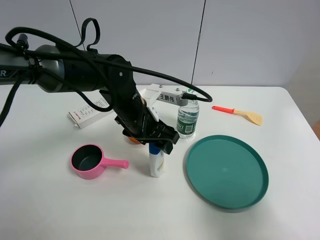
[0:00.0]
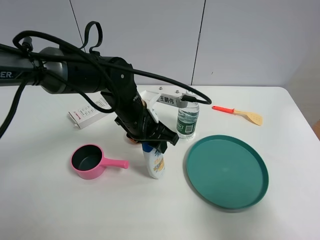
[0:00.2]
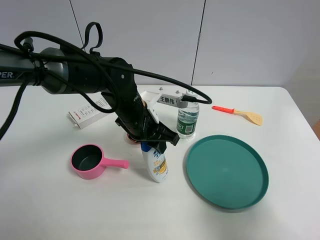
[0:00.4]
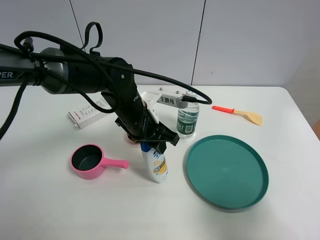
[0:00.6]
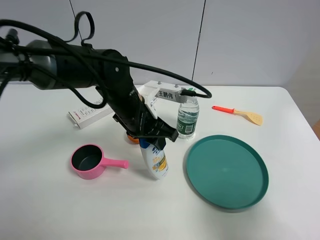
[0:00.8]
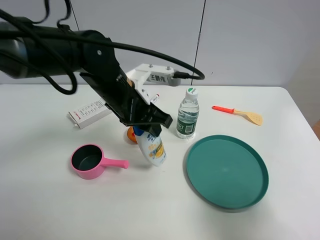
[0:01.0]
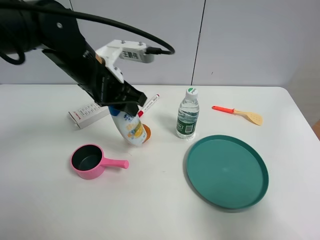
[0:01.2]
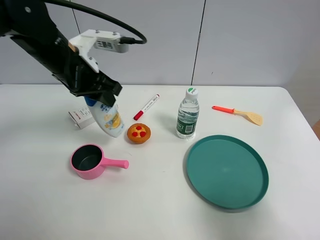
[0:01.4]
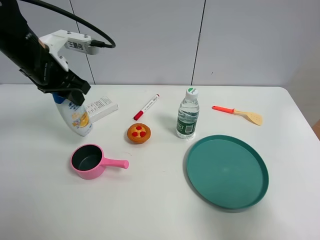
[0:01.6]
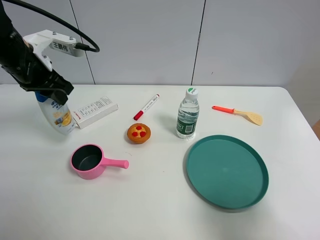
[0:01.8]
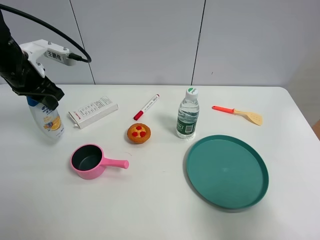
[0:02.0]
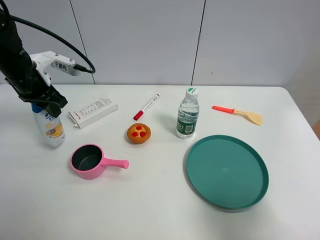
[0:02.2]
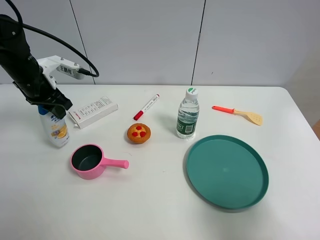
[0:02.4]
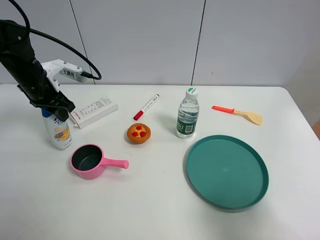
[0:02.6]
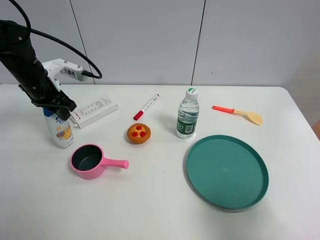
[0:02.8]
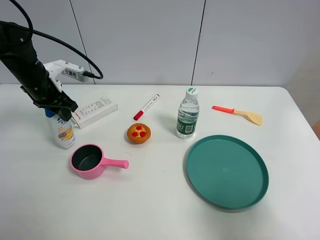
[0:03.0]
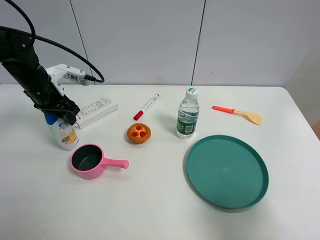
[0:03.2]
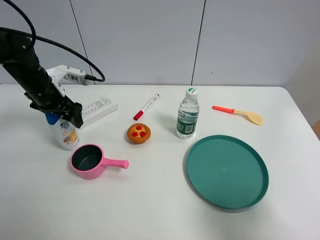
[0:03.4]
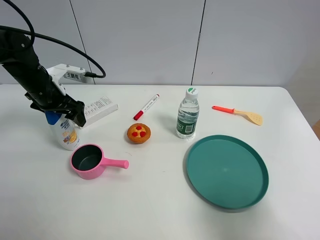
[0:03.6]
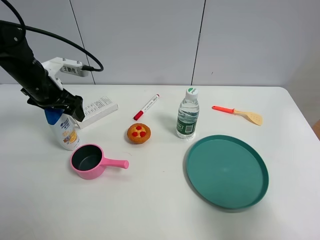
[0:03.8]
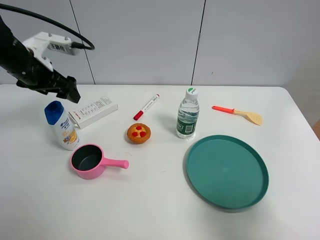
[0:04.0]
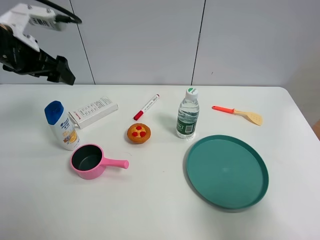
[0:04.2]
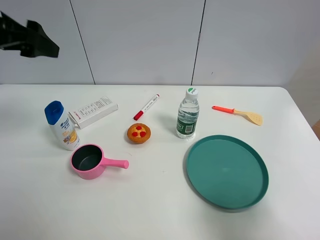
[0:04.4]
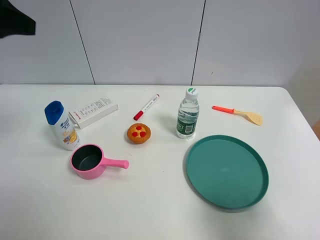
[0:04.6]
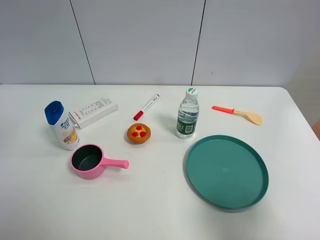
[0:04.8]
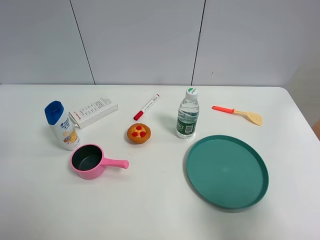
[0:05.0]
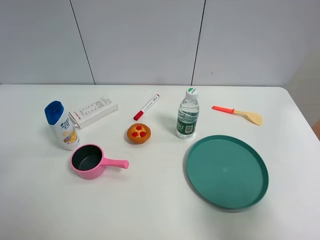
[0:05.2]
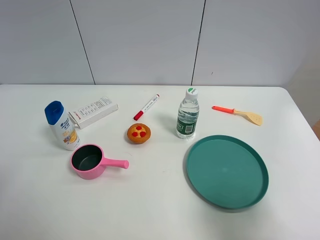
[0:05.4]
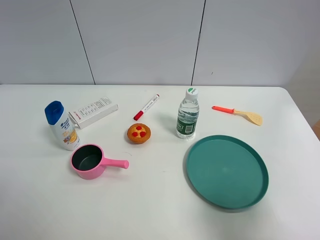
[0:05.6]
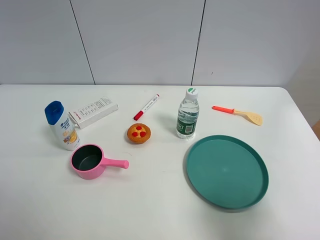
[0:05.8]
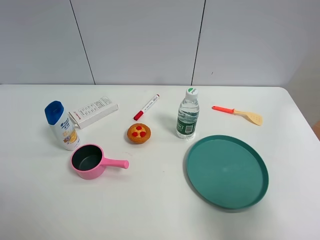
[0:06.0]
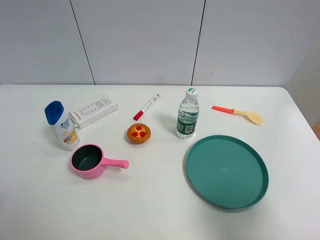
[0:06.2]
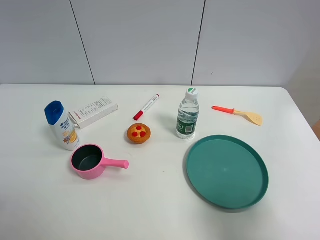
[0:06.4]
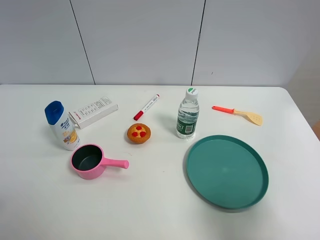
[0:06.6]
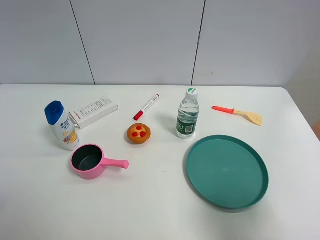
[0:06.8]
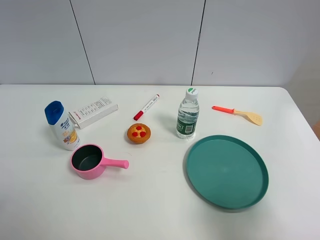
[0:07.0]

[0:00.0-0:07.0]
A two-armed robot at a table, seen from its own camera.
Task of the whole recording: the gripper move the object.
Step, 0:00.4 to 0:03.2: Place the shampoo on the table with the left gripper.
0:00.0 to 0:01.4: The left gripper shifts roughly 15 cm to the left and upward, and closes up.
0:01.4 to 0:02.8: The left gripper shifts about 15 cm to the left, downward and forward.
0:02.8 to 0:04.2: The left gripper heads upward, covering roughly 10 cm, and opens.
0:04.2 to 0:05.6: The left gripper moves backward, about 30 cm.

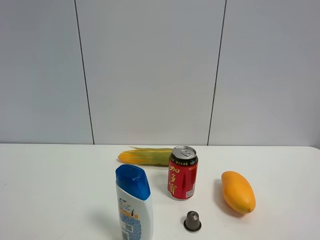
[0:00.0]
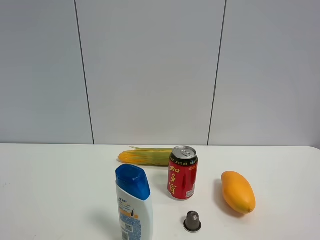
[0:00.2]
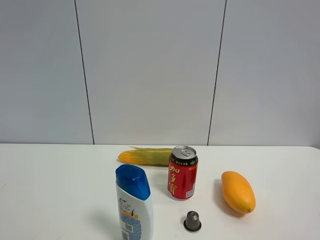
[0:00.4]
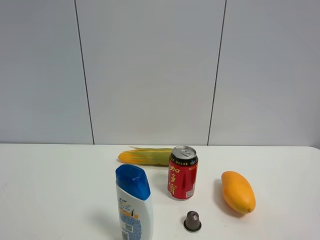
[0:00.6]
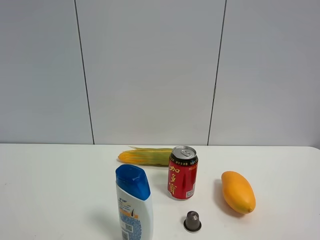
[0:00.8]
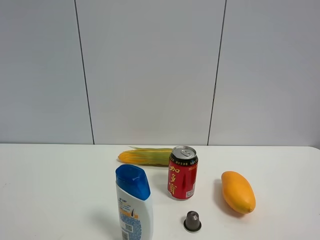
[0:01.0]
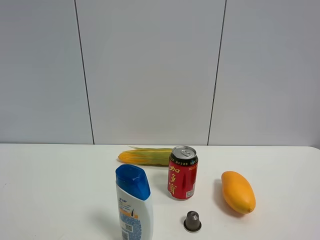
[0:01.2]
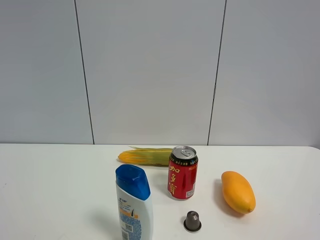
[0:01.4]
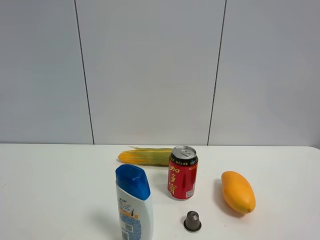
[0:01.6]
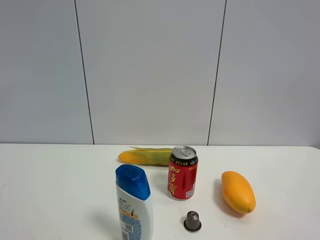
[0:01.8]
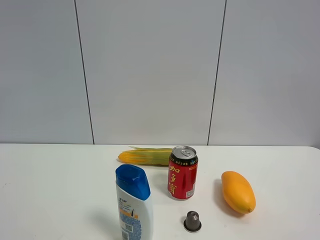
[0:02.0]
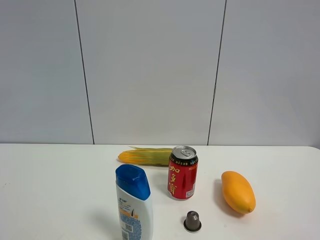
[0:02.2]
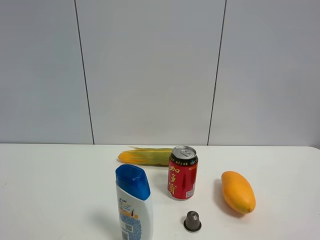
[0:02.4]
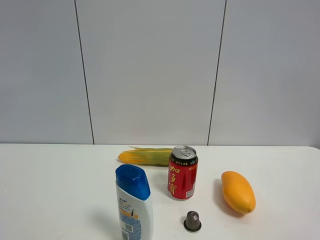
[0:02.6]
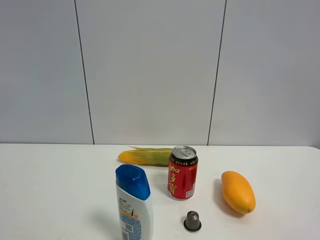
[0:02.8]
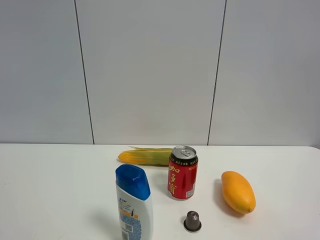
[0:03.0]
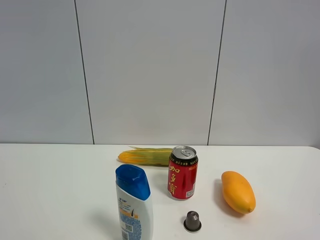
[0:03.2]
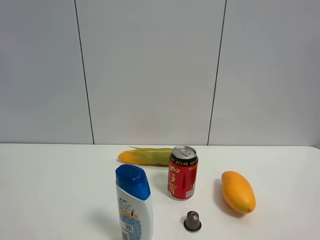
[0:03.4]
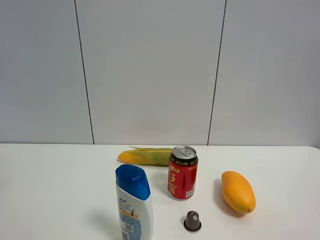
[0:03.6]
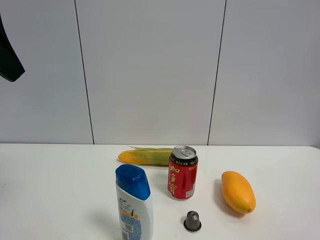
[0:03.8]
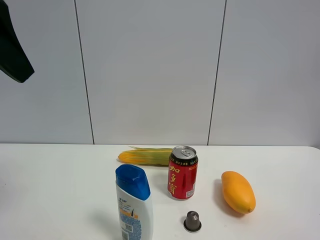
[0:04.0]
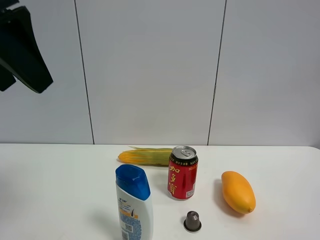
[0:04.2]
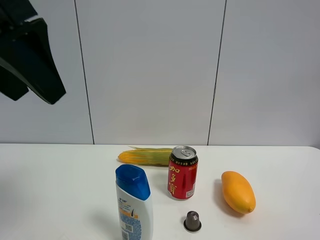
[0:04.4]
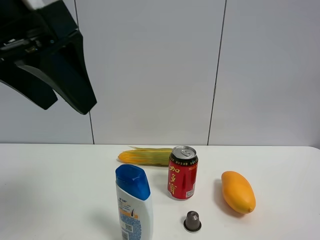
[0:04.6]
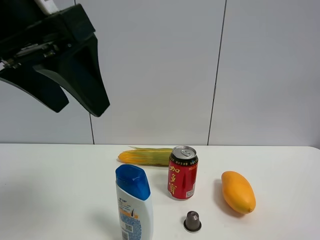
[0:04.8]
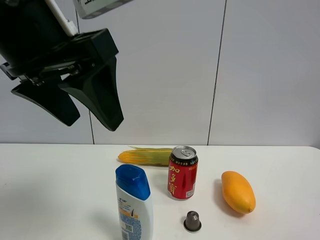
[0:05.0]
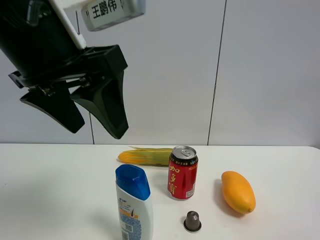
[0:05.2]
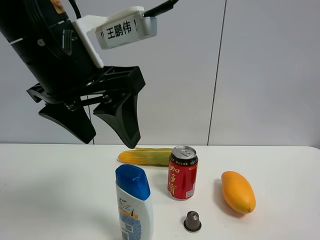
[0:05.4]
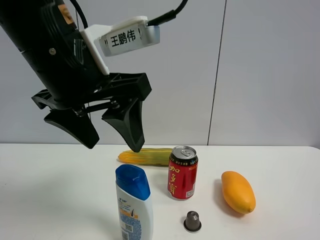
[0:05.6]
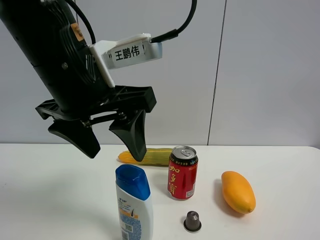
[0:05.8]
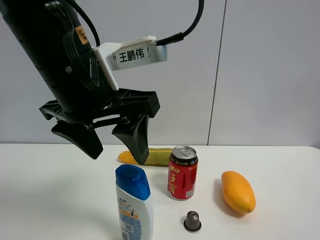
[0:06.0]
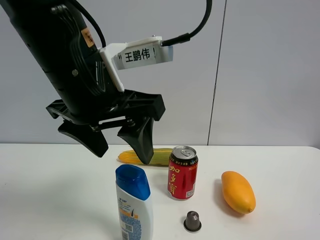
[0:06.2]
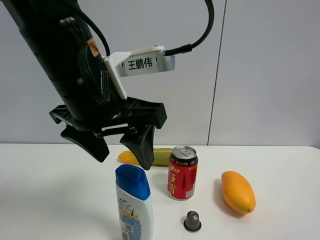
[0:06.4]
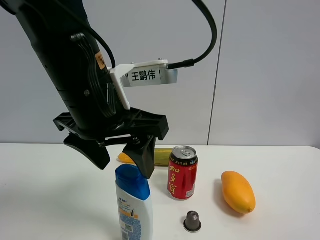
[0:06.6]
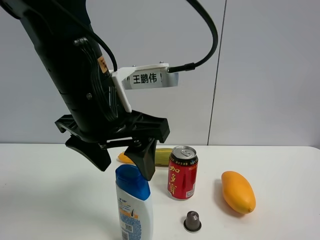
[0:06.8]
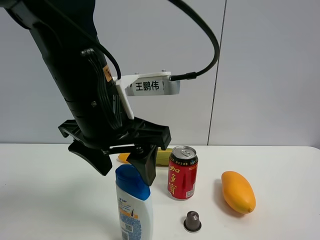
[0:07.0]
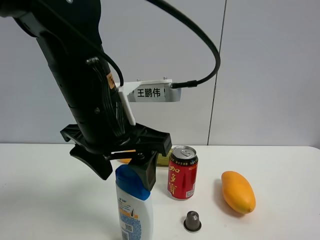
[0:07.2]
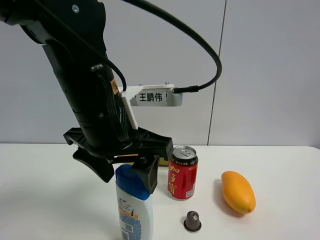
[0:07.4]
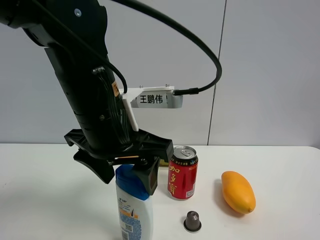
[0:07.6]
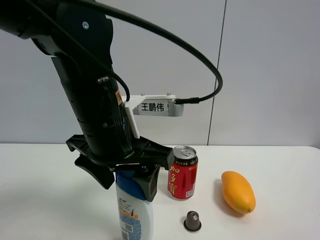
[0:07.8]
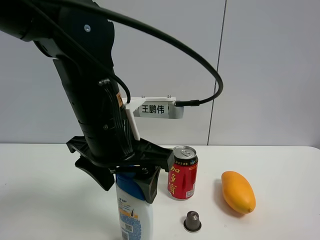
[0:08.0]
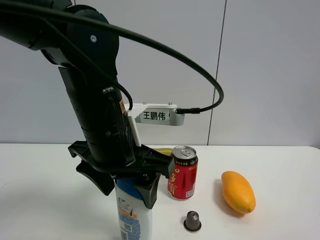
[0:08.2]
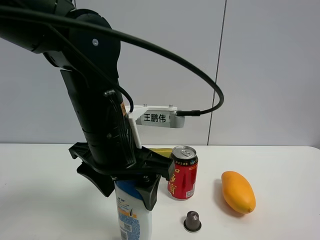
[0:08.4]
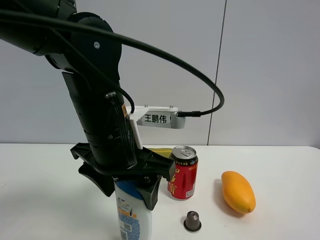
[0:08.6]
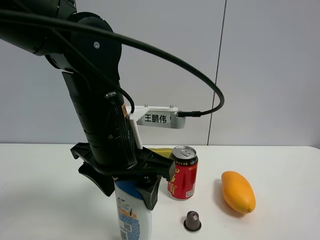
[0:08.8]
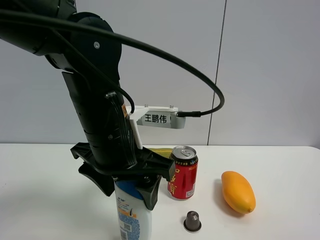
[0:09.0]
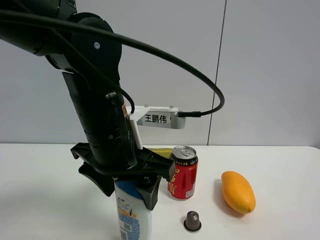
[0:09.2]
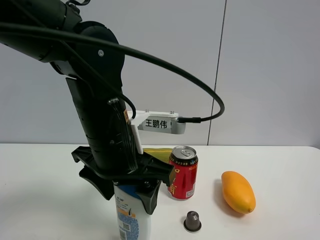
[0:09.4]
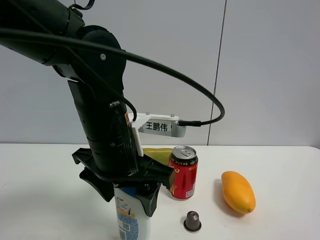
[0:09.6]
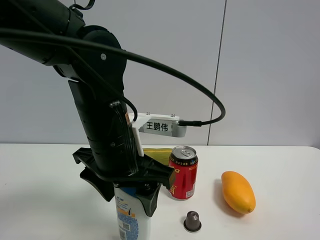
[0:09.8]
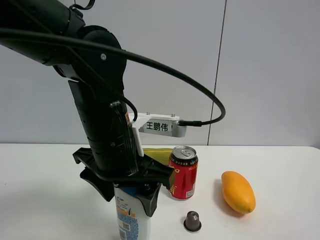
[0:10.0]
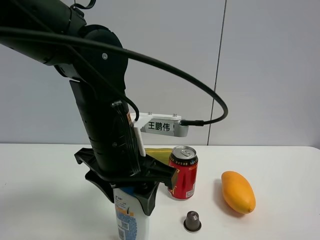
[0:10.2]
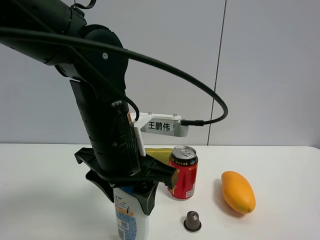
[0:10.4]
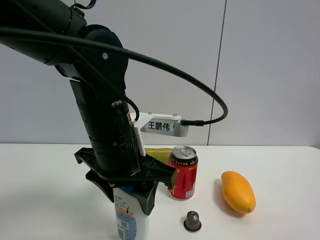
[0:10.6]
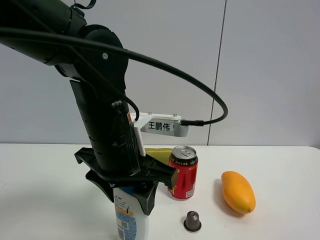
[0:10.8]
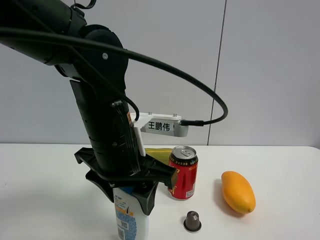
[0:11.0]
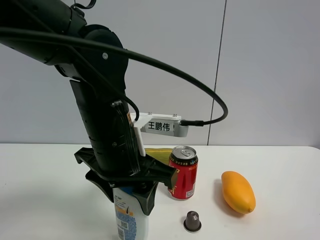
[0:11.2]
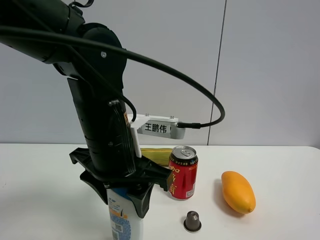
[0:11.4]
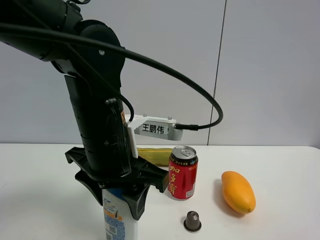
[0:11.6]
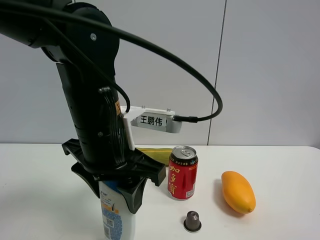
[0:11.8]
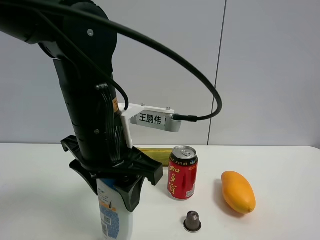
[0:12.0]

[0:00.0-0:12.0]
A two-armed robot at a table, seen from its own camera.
Task of the whole recording: the gripper move the object.
Step, 0:00.0 to 0:10.4: Grasp the shampoo with the left gripper.
0:03.0 to 0:04.4: The left gripper is displaced to the right by some 15 cm.
0:04.4 to 0:06.0: The left gripper moves to the right and downward, about 10 cm.
0:06.0 to 0:07.6: The left gripper heads downward, covering approximately 5 cm.
0:07.6 to 0:09.0: The grippers move only a little.
0:09.0 to 0:10.4: The left gripper closes up.
0:10.4 to 0:12.0: There are only small adjustments of the grippers.

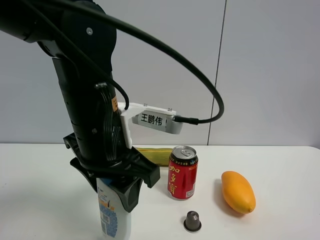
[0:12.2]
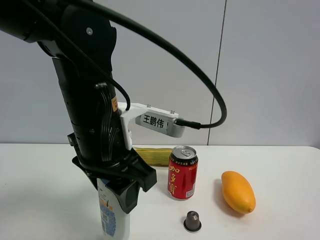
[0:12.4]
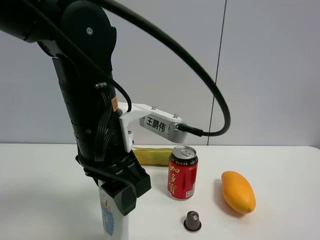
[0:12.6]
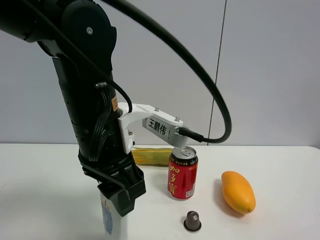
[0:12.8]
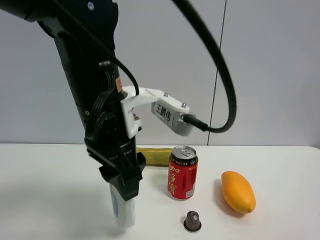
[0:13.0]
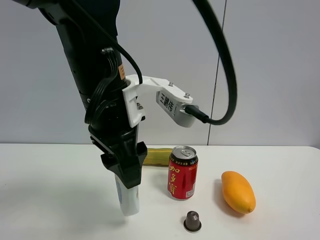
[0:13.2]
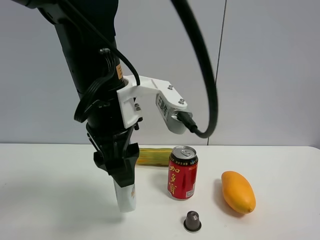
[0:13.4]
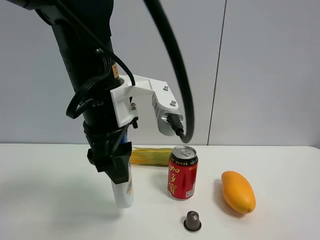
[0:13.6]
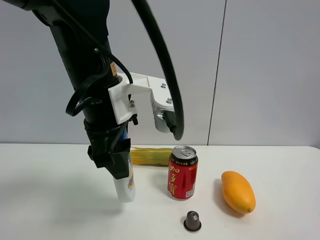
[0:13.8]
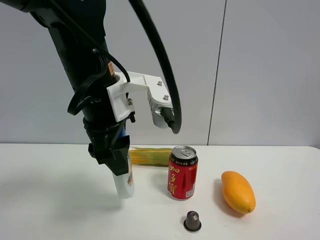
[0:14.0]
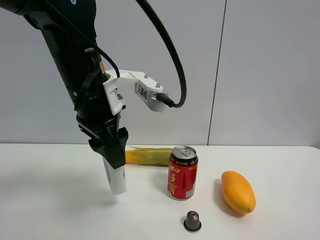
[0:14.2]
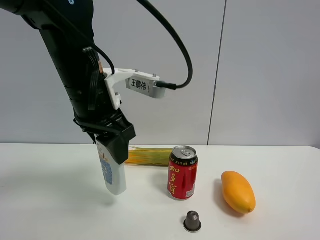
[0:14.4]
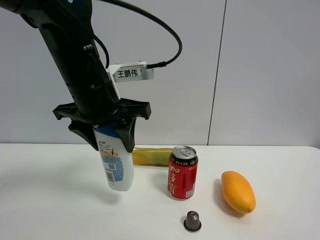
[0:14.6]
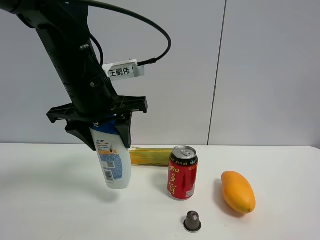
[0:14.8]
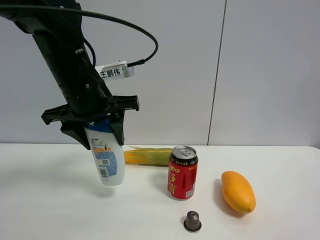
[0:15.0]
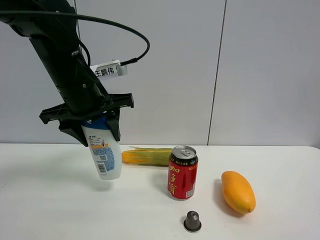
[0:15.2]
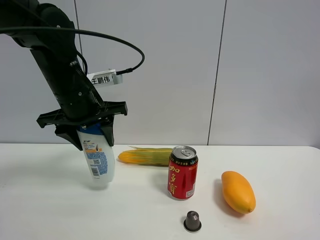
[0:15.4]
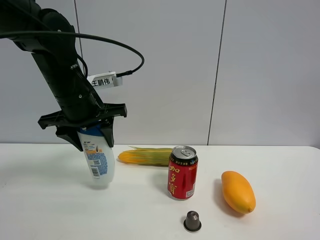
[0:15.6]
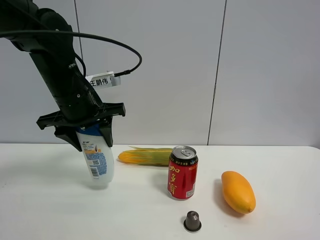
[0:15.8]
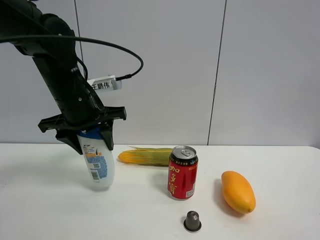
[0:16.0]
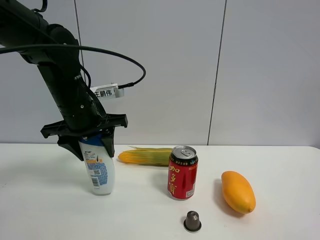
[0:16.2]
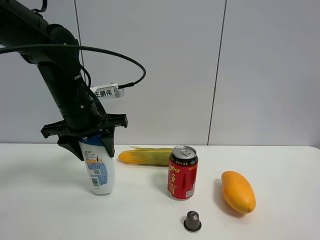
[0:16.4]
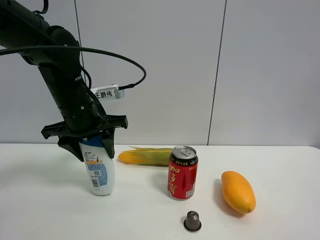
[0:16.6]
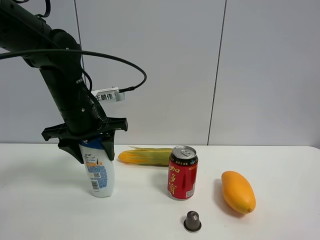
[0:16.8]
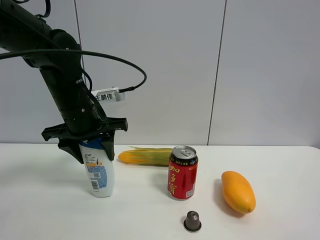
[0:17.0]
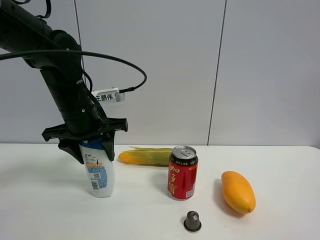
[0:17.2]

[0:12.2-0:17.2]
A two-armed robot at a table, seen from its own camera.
Task of the whole recording: the gripper move the object.
0:13.8 to 0:15.6: The left gripper travels forward and to the left by about 10 cm.
0:15.6 to 0:17.2: The grippers stay close to where they were, moving slightly.
